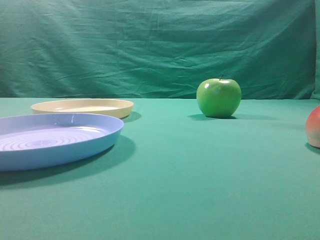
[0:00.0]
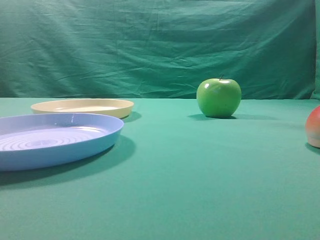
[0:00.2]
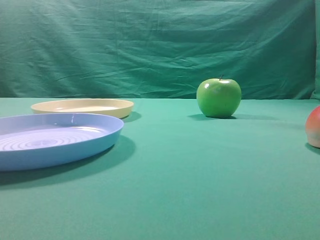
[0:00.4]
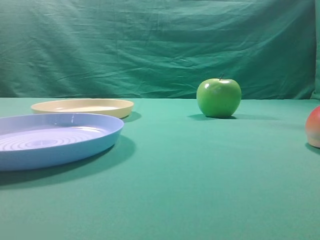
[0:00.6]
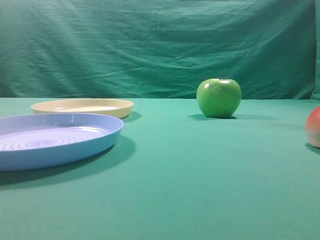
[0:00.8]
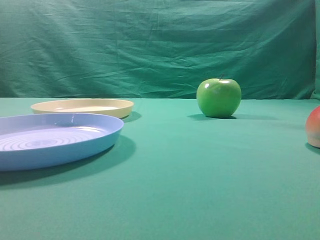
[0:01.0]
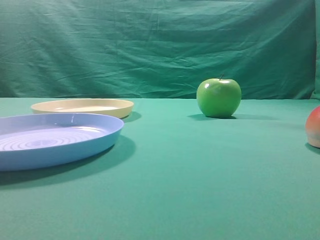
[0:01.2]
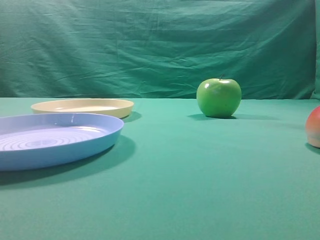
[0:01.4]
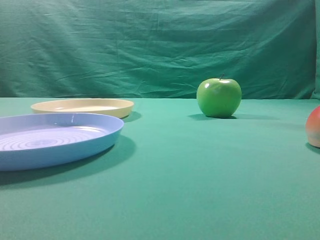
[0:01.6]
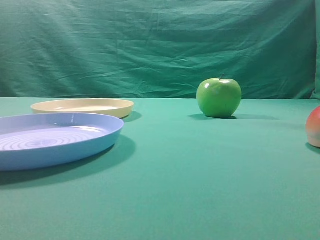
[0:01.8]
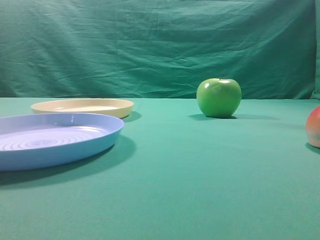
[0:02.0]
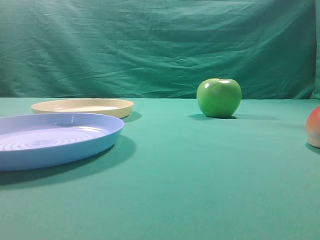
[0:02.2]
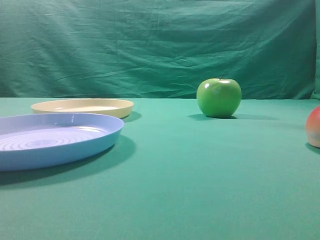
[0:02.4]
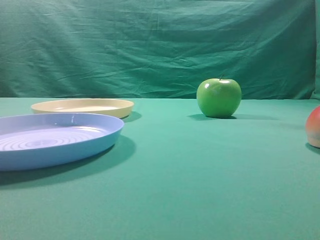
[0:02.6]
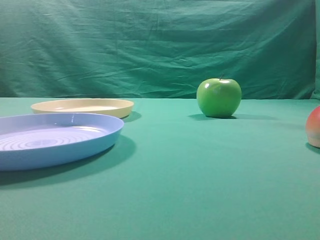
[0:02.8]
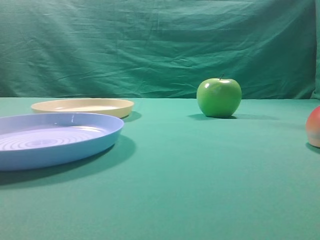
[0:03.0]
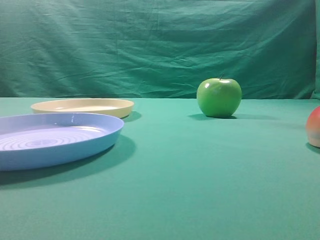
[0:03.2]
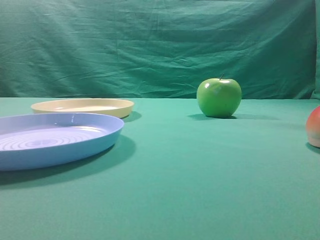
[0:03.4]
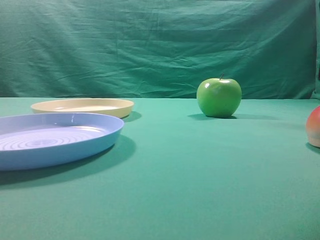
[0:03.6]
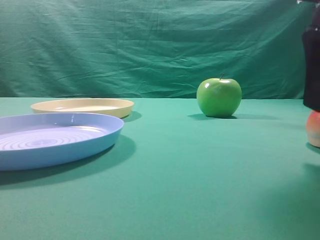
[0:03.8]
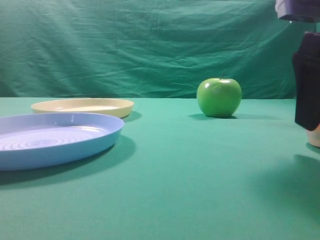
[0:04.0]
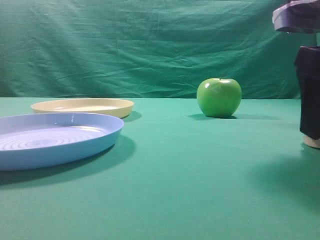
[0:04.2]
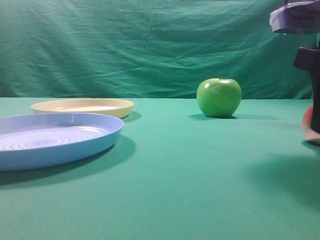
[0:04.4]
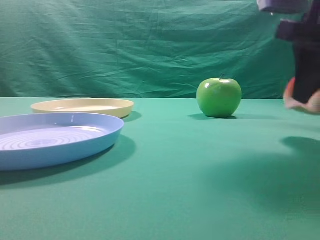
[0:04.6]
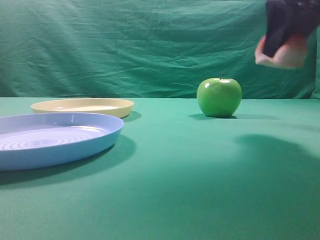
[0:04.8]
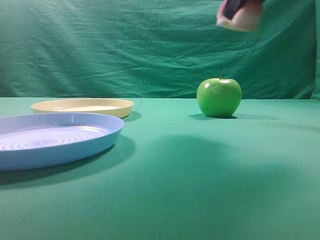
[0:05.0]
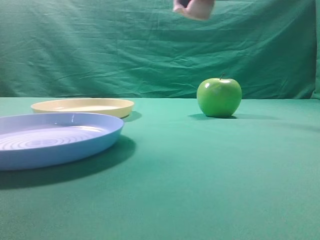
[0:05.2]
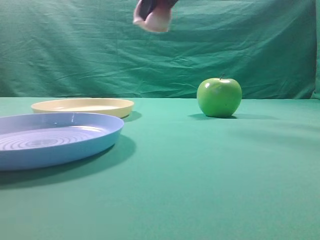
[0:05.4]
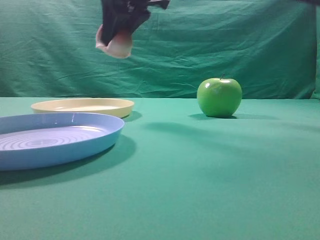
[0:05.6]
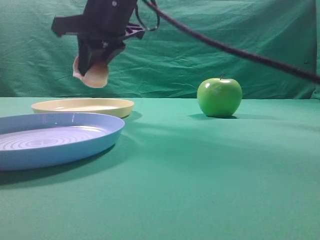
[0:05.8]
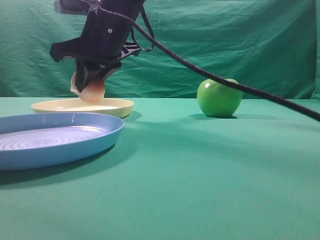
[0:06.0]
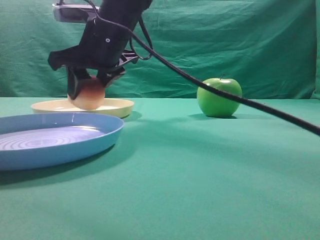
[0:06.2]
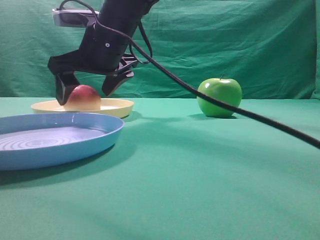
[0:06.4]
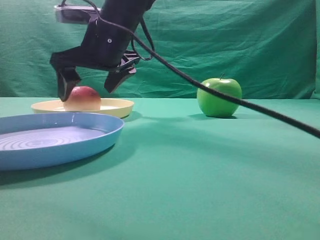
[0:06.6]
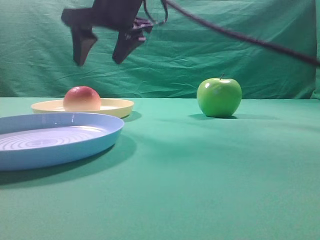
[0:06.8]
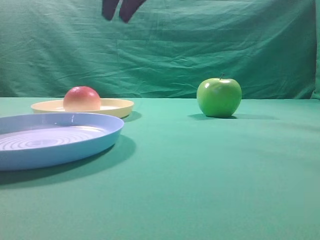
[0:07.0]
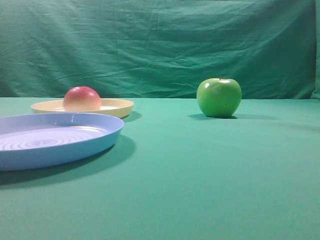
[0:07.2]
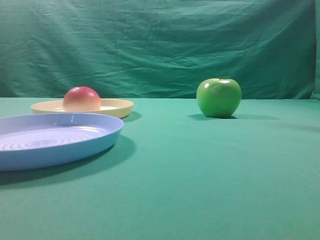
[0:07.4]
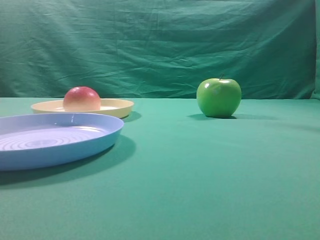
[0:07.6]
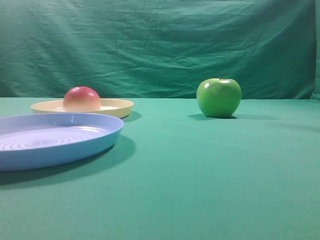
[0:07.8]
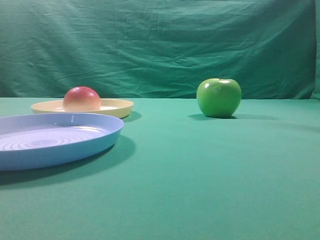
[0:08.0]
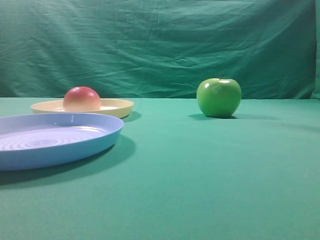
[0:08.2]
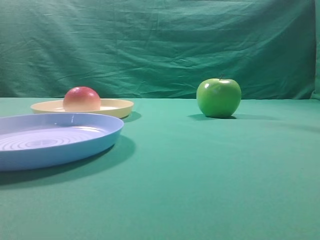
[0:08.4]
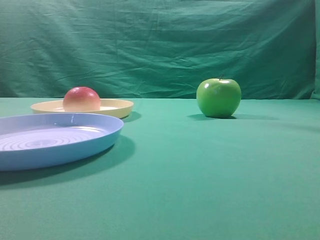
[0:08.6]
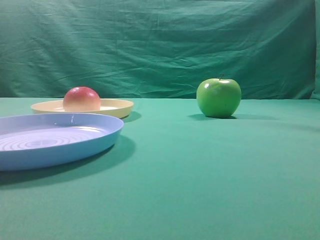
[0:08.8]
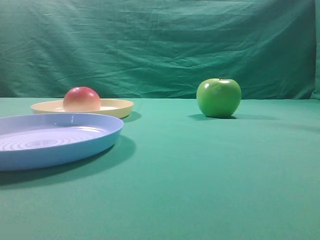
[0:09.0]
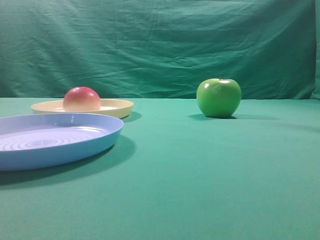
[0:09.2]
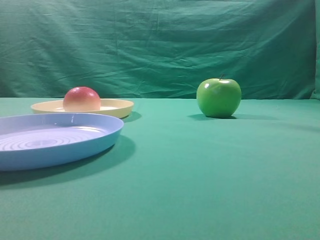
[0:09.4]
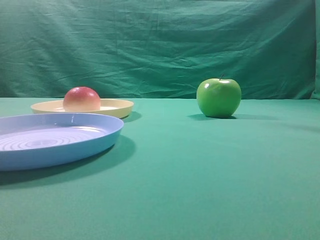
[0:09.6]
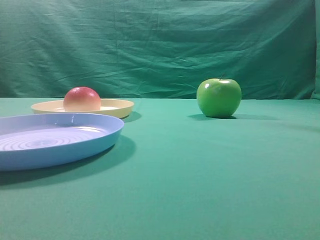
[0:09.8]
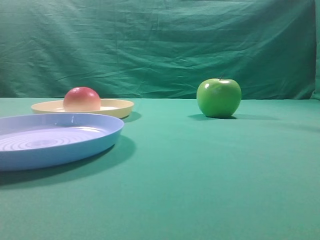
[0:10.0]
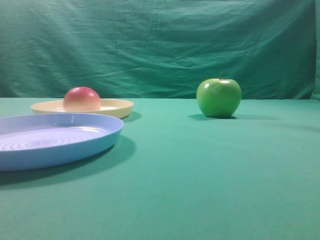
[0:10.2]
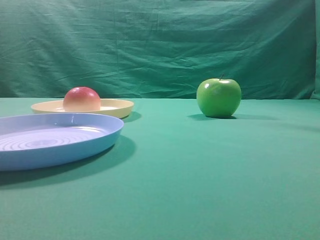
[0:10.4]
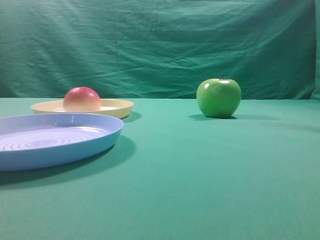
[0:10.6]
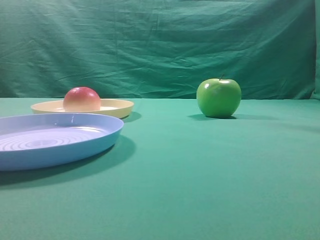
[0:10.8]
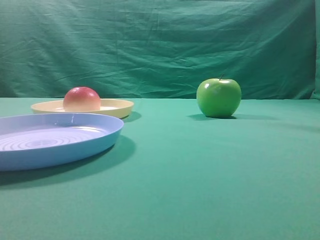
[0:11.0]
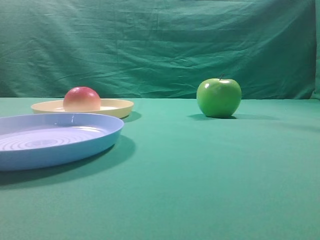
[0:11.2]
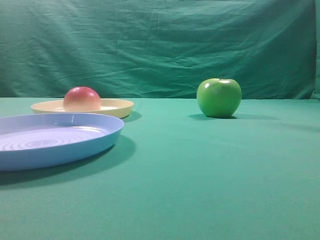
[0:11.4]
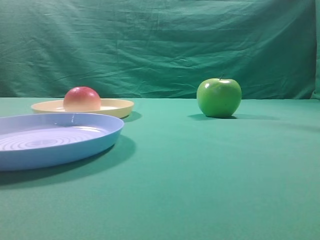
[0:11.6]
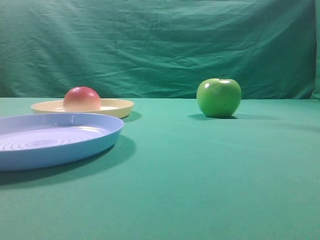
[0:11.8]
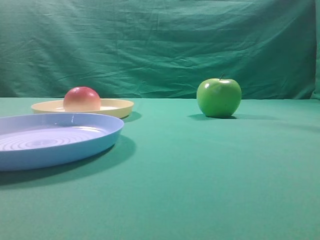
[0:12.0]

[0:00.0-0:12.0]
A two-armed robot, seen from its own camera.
Step, 0:04.8 to 0:06.8: Place the picked object on the yellow plate.
